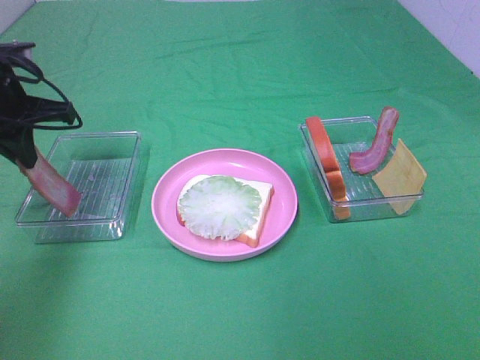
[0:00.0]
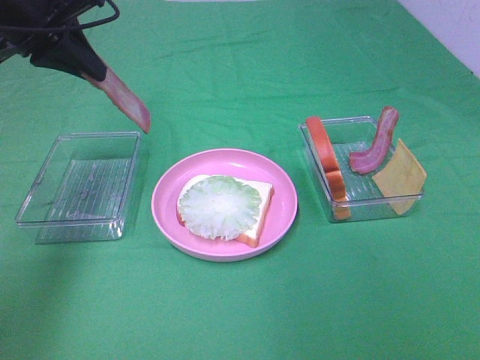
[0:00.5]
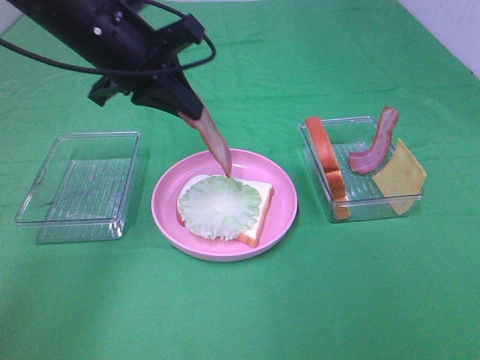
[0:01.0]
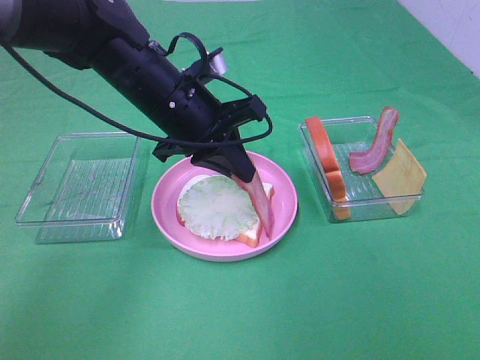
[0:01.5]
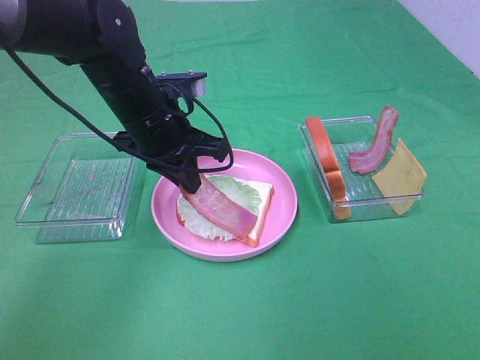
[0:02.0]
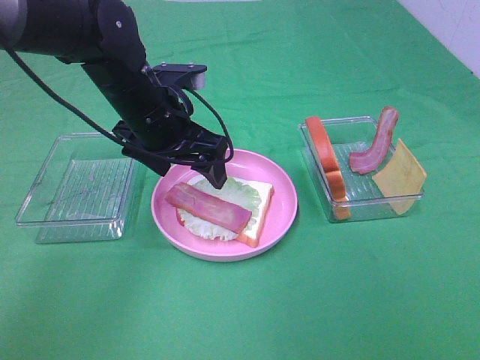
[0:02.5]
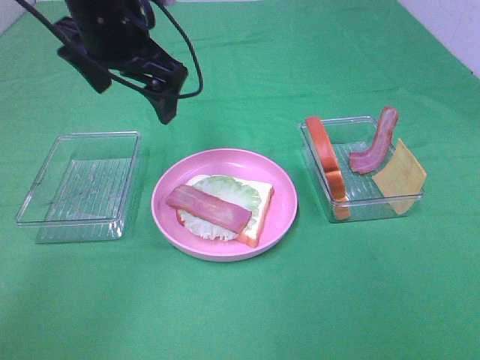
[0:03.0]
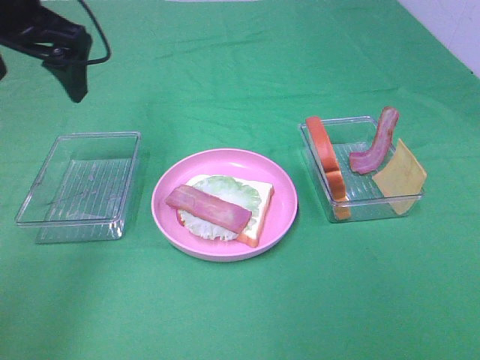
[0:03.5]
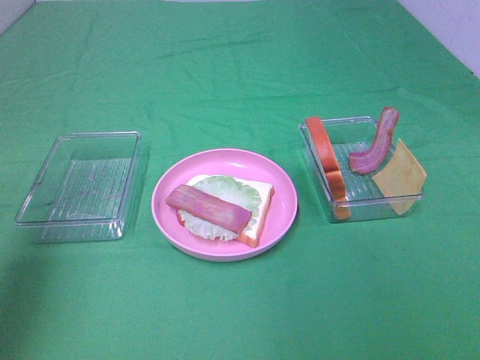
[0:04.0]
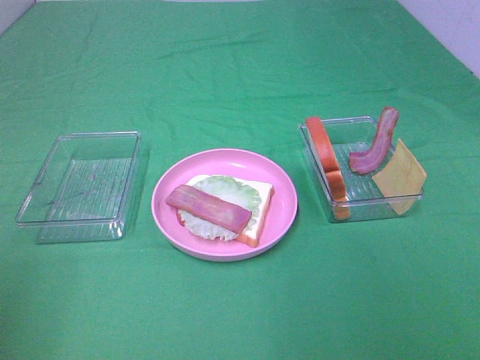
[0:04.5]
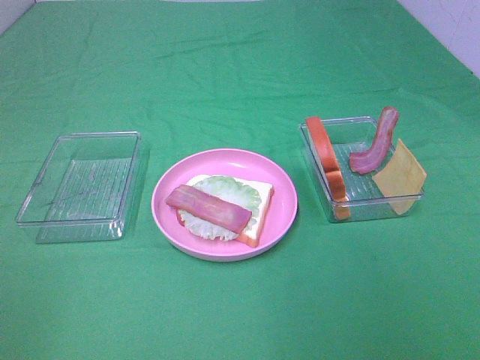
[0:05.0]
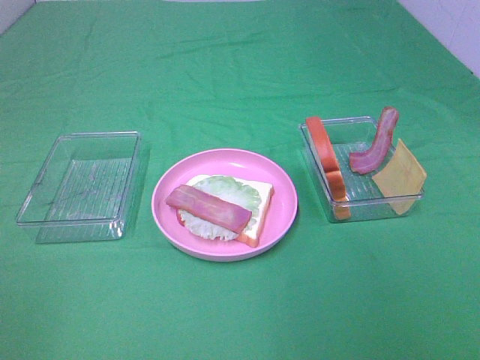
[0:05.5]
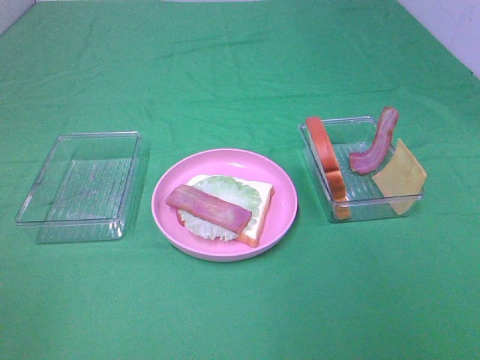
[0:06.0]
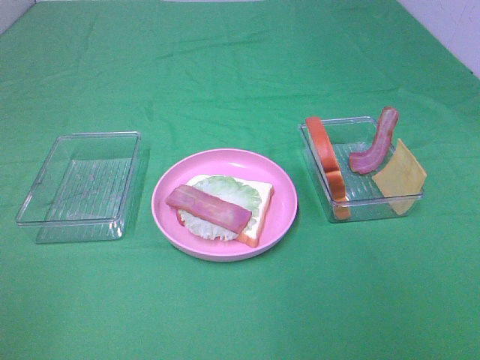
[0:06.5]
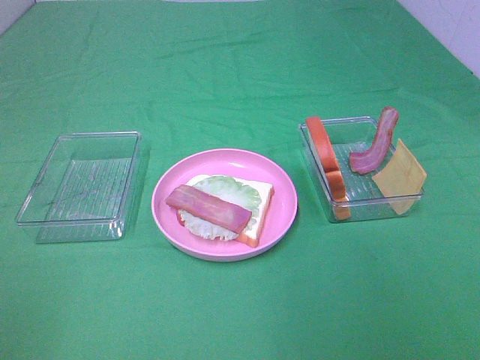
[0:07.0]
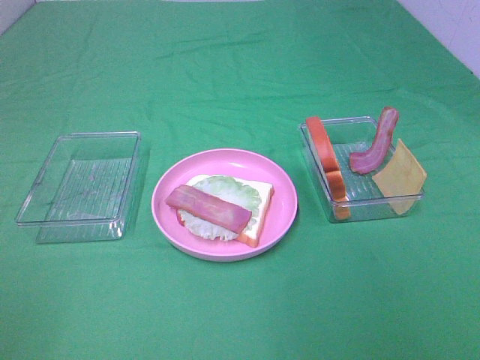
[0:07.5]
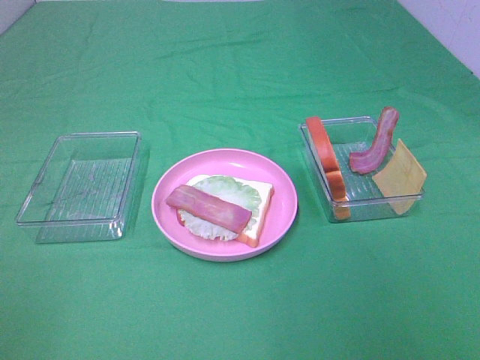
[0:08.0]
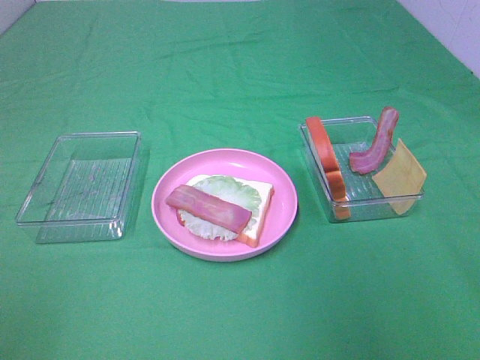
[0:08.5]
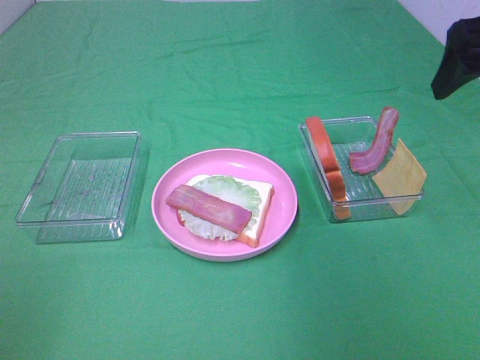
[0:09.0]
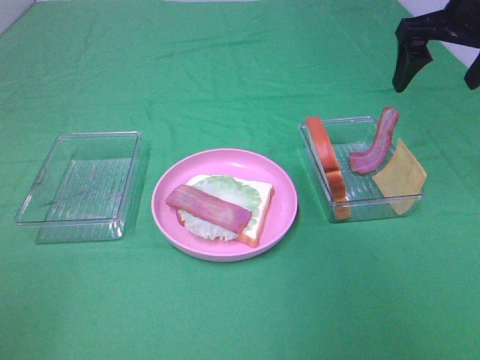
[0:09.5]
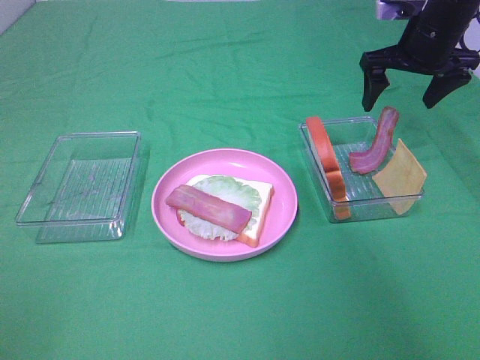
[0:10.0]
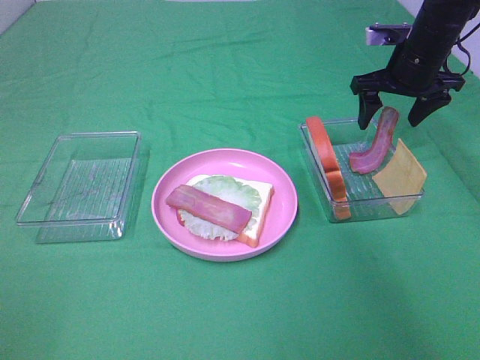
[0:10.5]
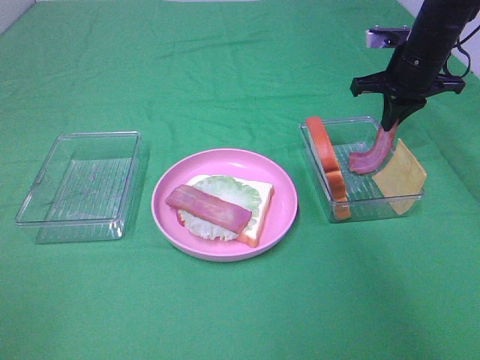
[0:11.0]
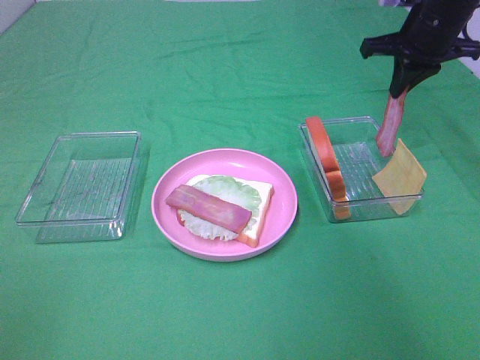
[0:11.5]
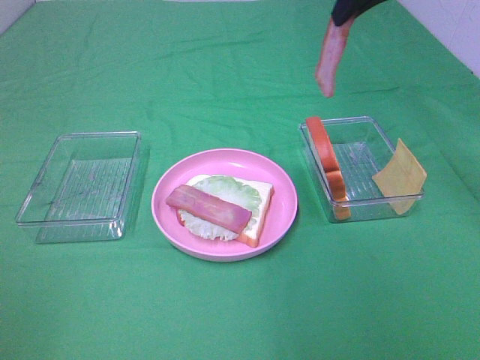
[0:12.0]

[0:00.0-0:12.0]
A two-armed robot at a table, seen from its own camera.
Task of the whole recording: Make sandwiches.
Step, 0:00.0 to 0:02.5: Left hand:place bacon on lettuce slice.
Step, 0:03.0 to 0:11.0: Right hand:grab the bacon.
0:00.0 to 0:02.0: The left gripper heads to the right, covering approximately 15 cm.
0:02.0 to 0:04.0: The left gripper is displaced to the left, backward and upward by approximately 30 cm, and opens.
0:04.0 to 0:06.0: The left gripper is displaced backward by roughly 20 cm.
0:08.0 to 0:10.0: The right gripper goes roughly 40 cm forward.
0:10.0 to 0:12.0: The right gripper shifts some 20 cm upward, to the left and backward, and closes its fingers.

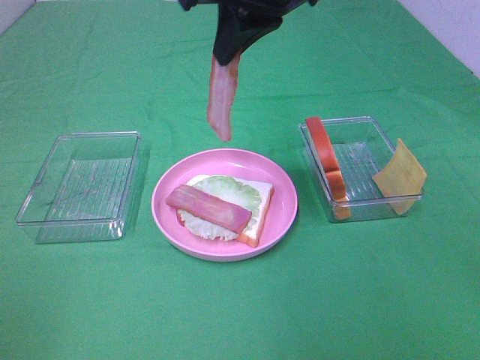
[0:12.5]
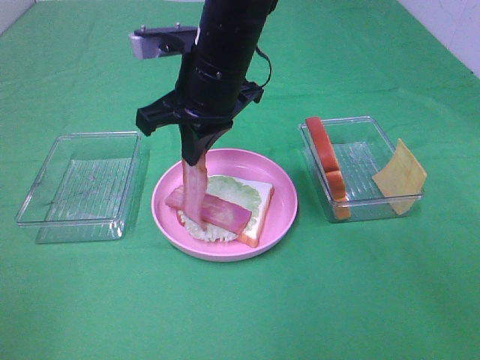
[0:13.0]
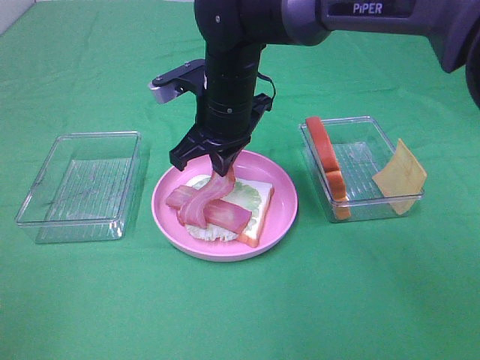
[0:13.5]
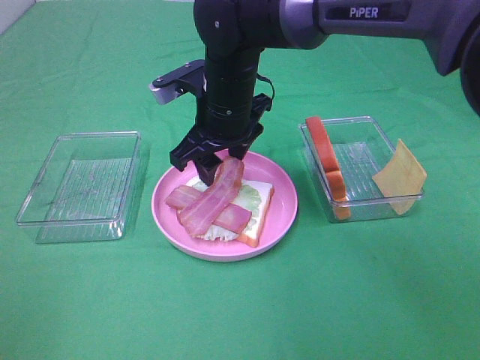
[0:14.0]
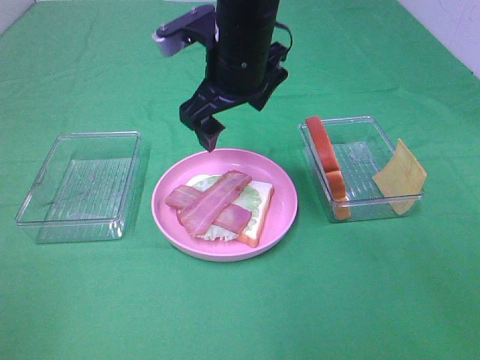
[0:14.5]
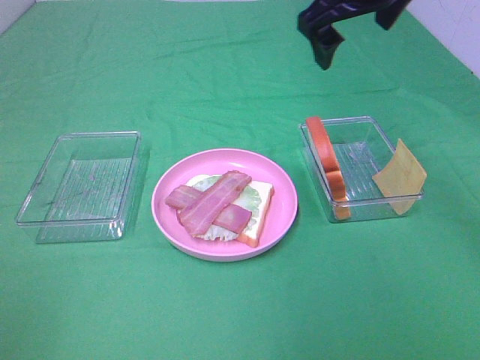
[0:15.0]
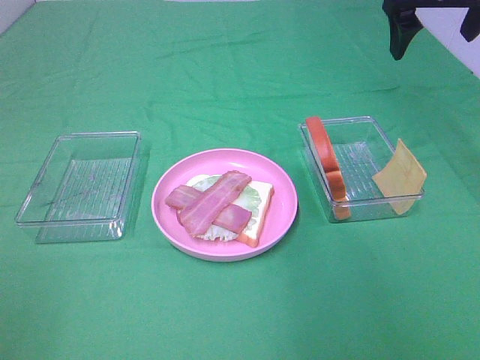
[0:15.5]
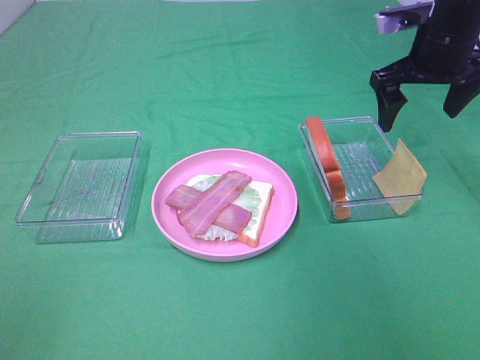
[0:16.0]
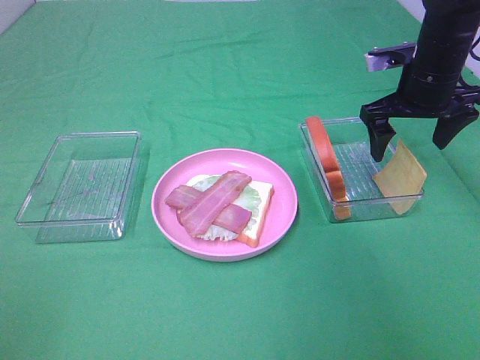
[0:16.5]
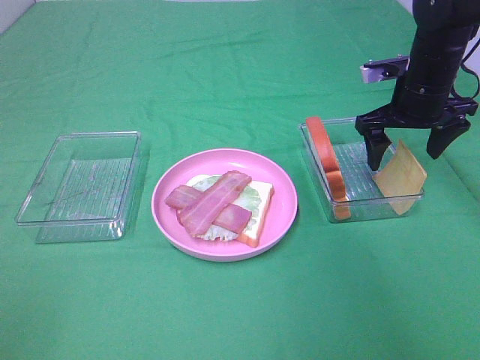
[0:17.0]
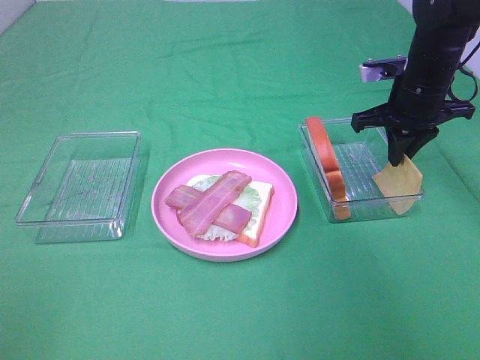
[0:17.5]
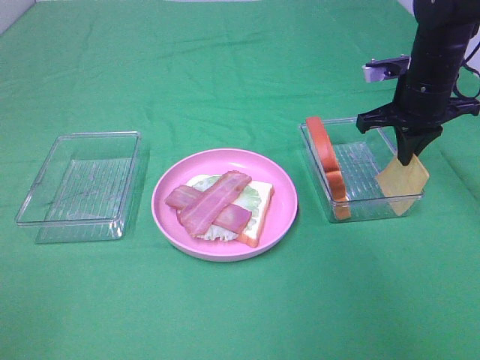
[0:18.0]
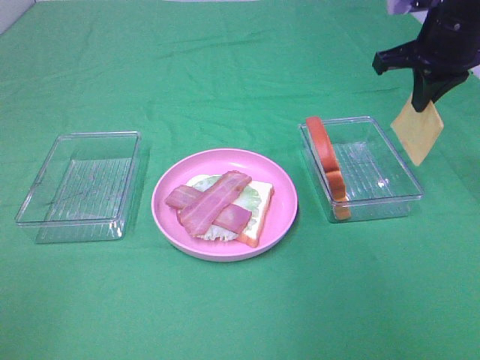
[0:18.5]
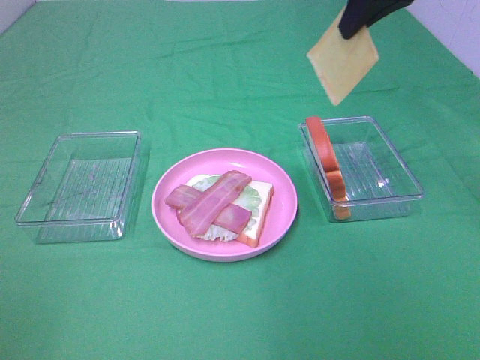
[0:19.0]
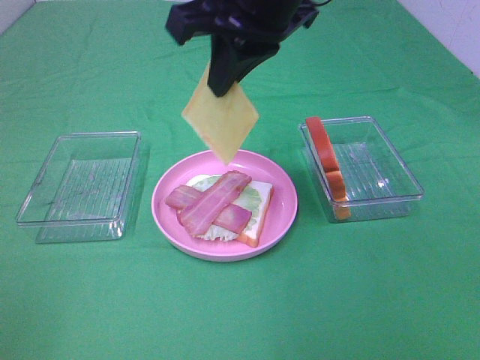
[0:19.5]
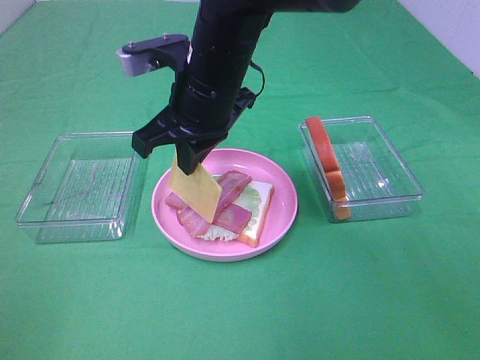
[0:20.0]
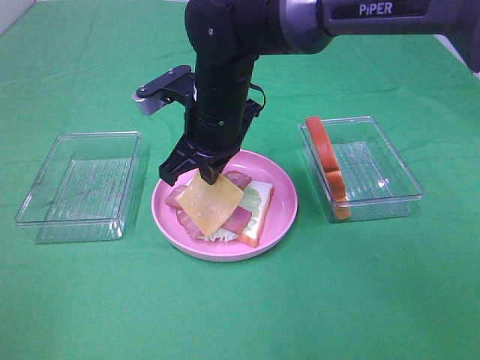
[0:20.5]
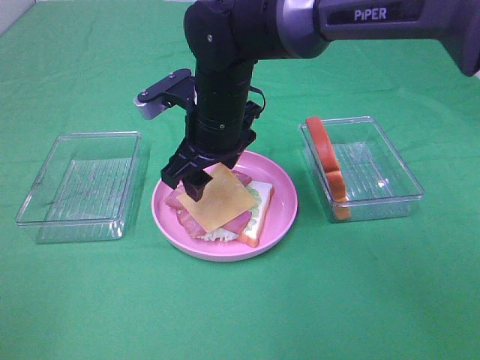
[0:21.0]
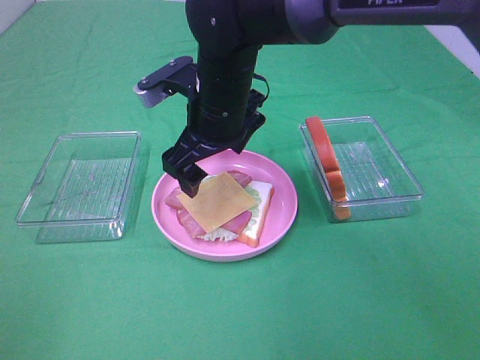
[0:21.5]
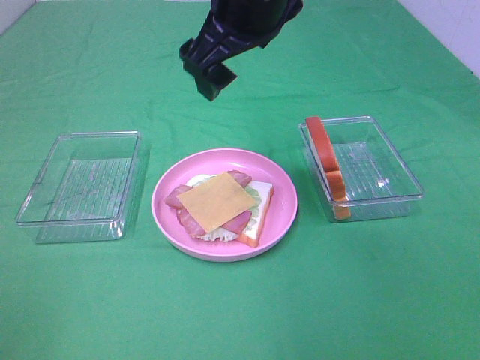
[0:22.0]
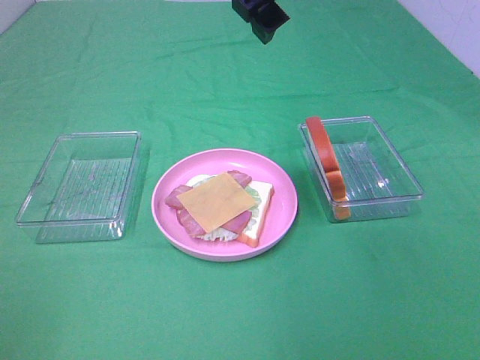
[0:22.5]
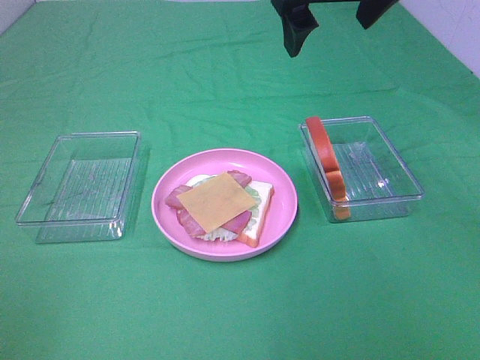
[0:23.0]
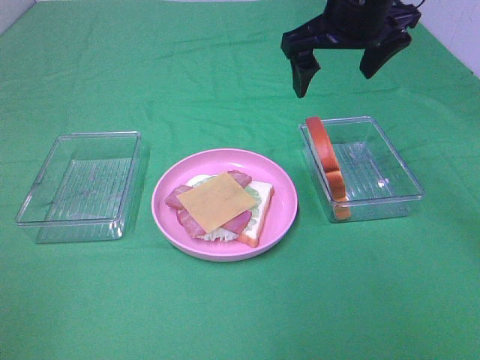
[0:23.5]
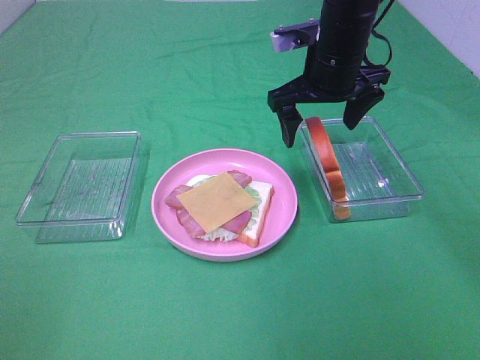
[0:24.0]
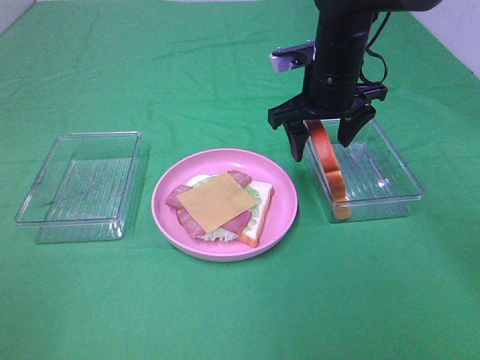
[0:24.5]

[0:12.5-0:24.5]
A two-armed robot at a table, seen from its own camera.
Task of the whole recording: Make sandwiches.
Step, 0:12.5 to 0:14.0: Right hand:place bacon on bacon.
Step, 0:14.5 to 0:17.5: Right hand:grab the cheese slice.
Step, 0:18.0 to 0:21.0: Right hand:place the cheese slice on top of the bacon.
0:12.5 to 0:14.5: The right gripper heads downward, covering roughly 10 cm, and opens its fingers.
0:14.5 to 0:16.5: The right gripper goes roughly 25 cm to the right.
0:16.5 to 0:18.5: The right gripper is displaced upward by roughly 10 cm, and closes its fingers.
0:18.5 to 0:20.5: The right gripper moves to the left, approximately 25 cm.
0:20.5 to 0:22.5: The right gripper goes approximately 20 cm upward, and opens up.
0:22.5 to 0:24.5: The right gripper goes some 20 cm downward and forward.

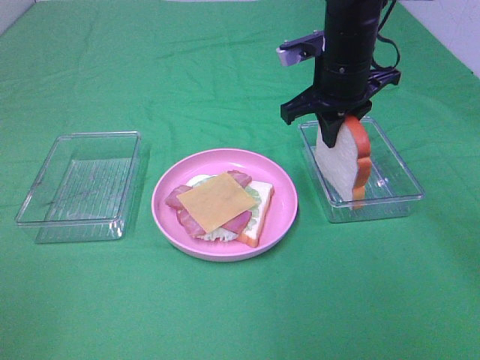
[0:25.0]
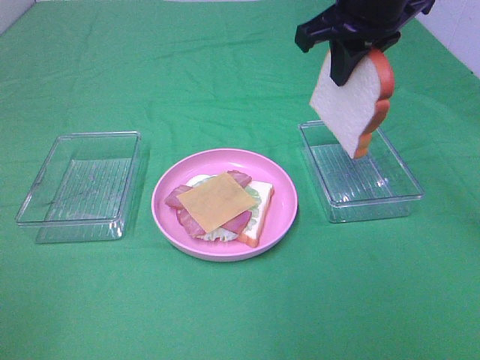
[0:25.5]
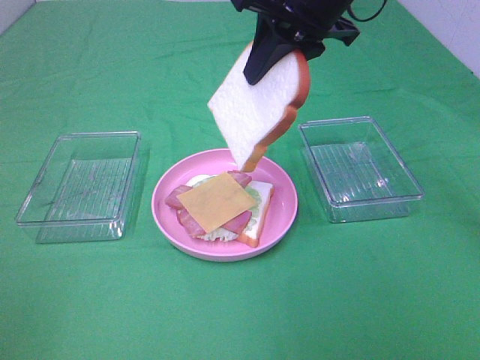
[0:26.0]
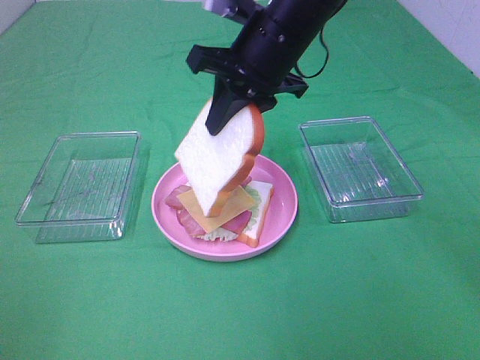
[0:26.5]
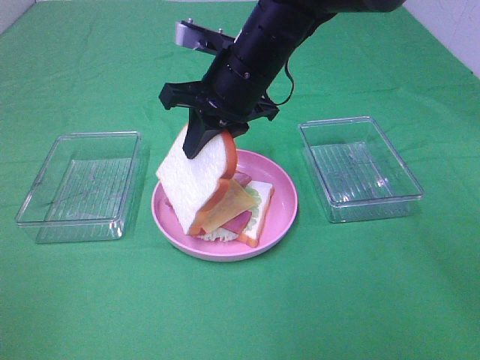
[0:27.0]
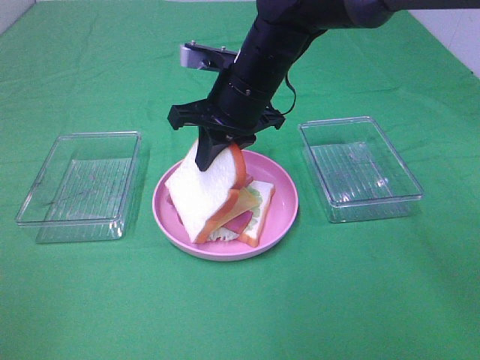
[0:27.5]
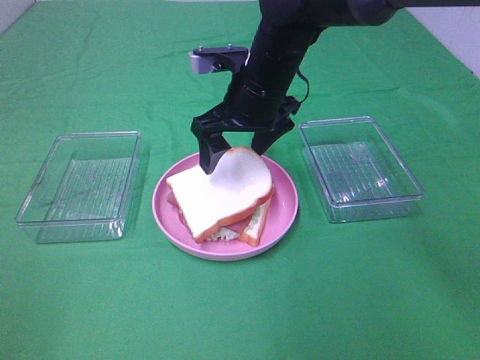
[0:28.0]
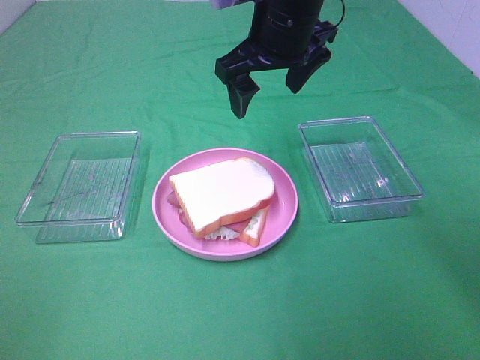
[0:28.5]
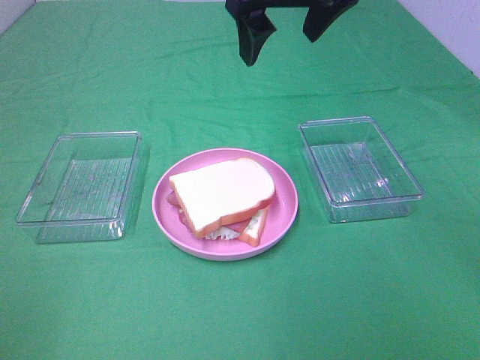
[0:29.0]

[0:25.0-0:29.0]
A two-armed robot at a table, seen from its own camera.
Task of the whole recording: Make sandwiches.
Step, 0:25.0 to 0:28.0: Right hand:place the bread slice on the cheese slice.
0:25.0 to 0:27.0: The right gripper heads to the left, covering roughly 10 cm.
0:27.0 to 0:29.0: The right gripper goes approximately 15 cm upward, and opens its fingers.
